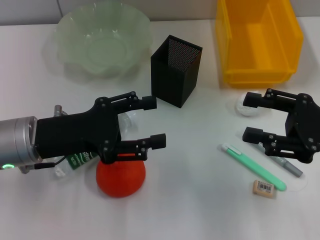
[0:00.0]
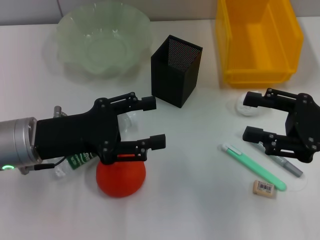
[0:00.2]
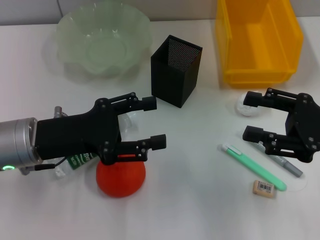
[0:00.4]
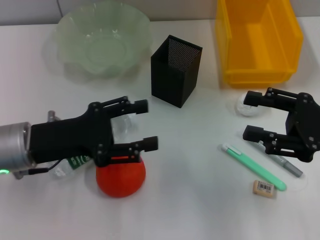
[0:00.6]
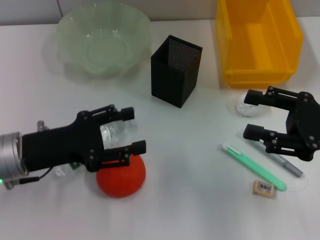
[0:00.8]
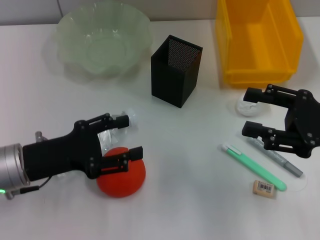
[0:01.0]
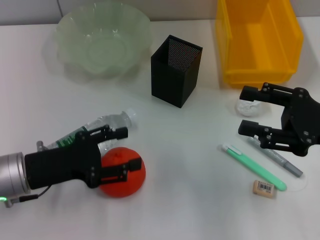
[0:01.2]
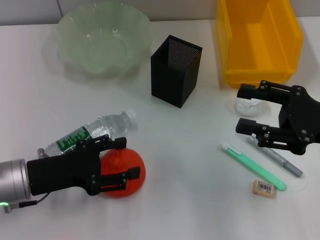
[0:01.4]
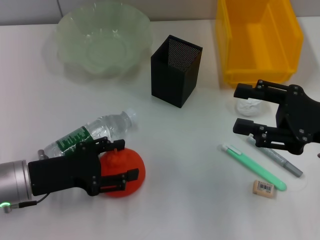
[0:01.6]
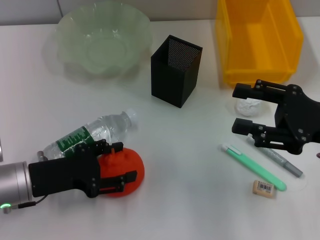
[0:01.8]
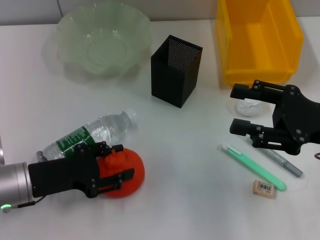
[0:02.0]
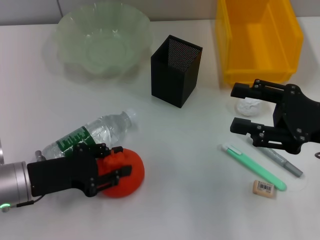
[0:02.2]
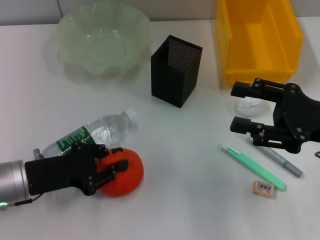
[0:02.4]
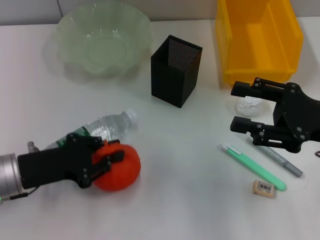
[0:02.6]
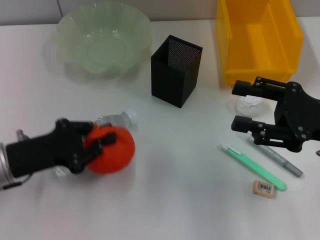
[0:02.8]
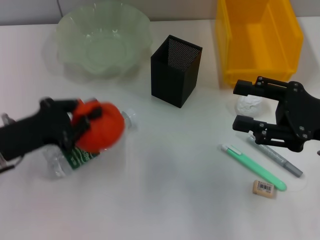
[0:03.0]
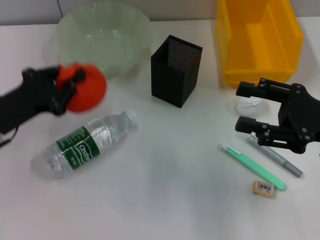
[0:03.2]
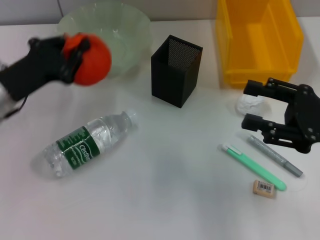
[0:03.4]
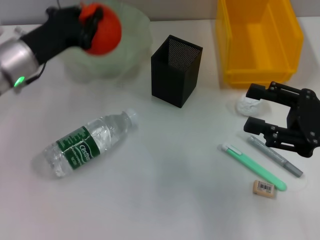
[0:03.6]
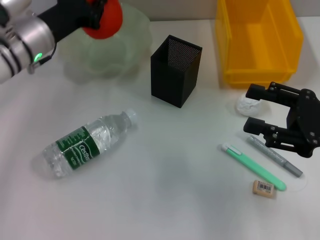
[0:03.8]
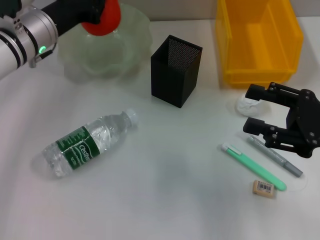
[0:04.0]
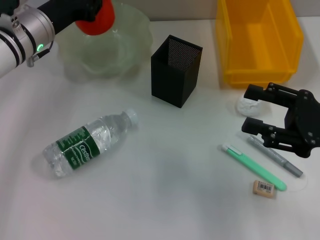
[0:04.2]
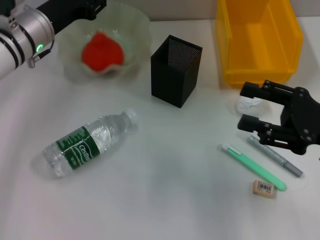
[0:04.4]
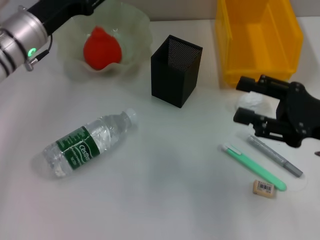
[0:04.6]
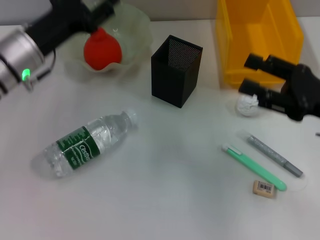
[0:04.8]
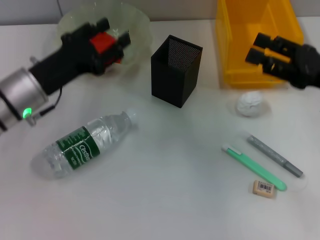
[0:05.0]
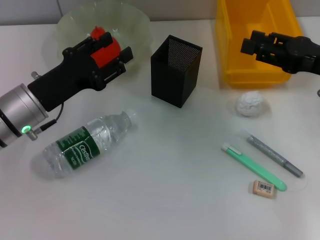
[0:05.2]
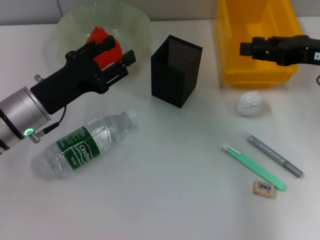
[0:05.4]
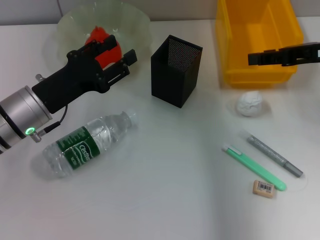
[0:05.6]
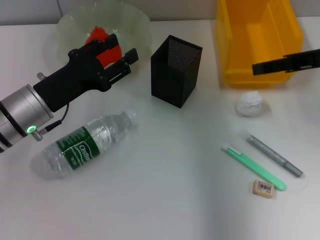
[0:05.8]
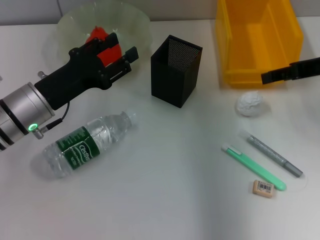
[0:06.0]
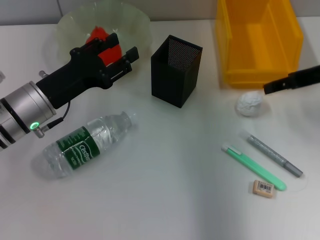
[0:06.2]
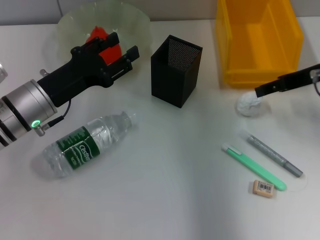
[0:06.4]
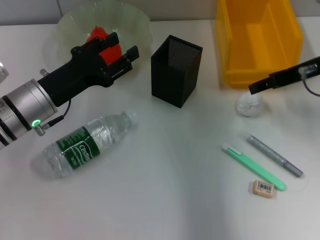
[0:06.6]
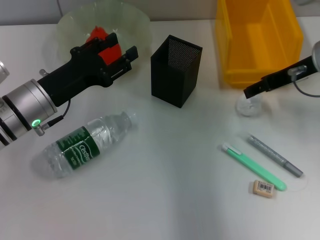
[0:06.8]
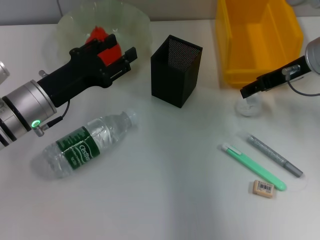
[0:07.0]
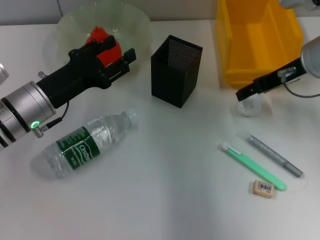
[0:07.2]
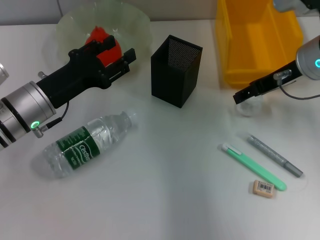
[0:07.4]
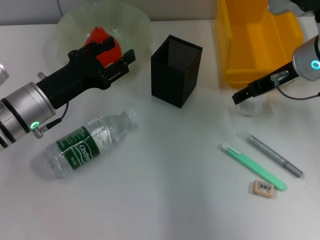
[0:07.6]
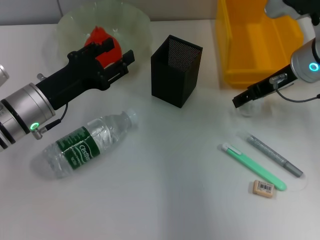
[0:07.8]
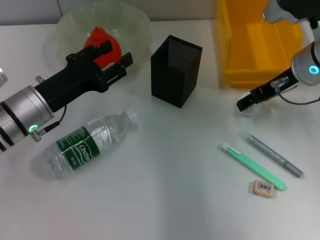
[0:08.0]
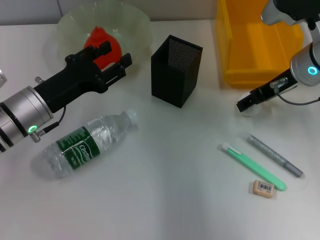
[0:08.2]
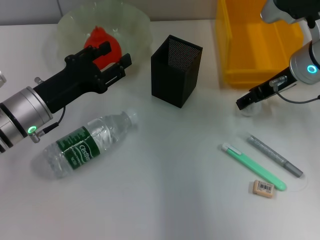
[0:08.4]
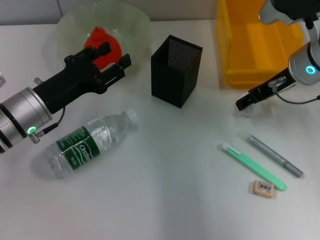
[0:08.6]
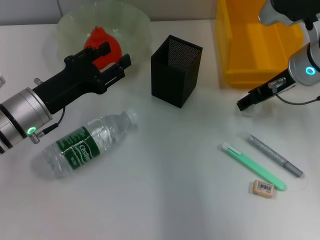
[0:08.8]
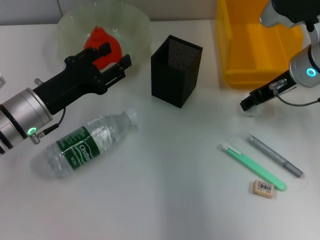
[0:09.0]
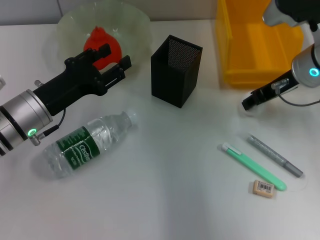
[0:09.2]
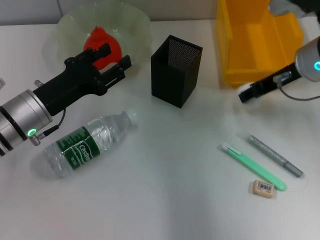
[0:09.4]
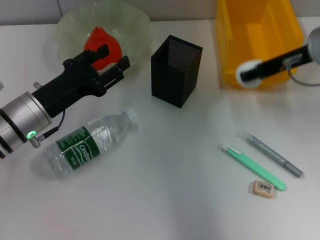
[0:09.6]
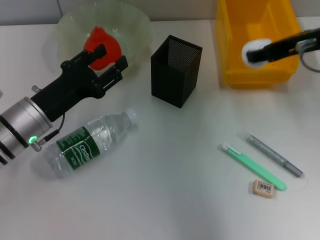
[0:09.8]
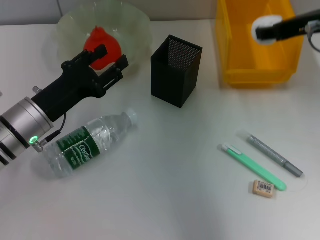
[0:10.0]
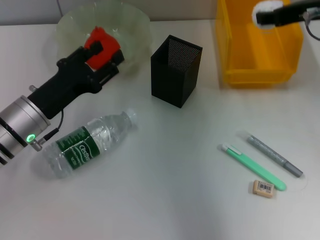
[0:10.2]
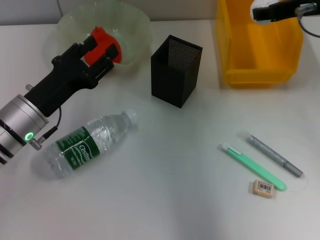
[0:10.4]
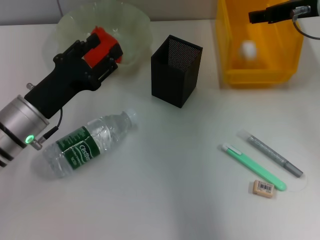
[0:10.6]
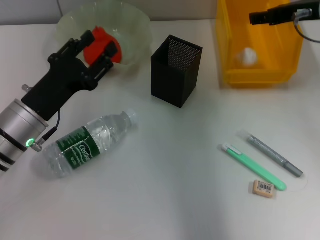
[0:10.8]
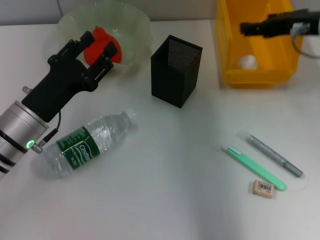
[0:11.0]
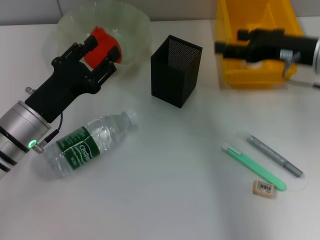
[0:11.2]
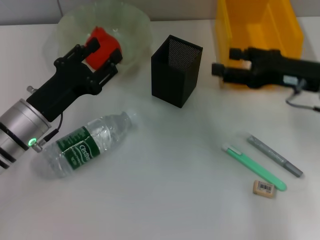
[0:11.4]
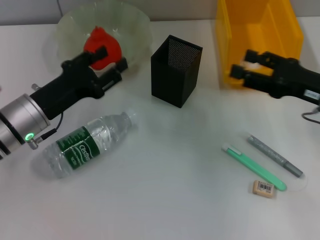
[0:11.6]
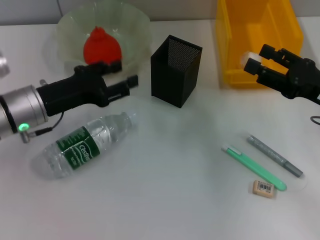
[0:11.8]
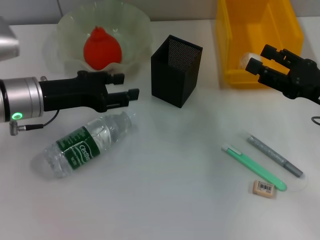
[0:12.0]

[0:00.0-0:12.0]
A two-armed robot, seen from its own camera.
Step, 0.0 to 2.0 s: Grab the orange with the left hand.
Step, 2.2 to 4.8 s: Place the orange into the fruit bowl with the left hand.
Step, 5.0 to 9.0 s: Grab the paper ball with the right hand.
Step, 9.2 to 11.0 s: Place the paper ball into the trash can with the right hand.
0.0 to 1.6 s: The left gripper goes roughly 5 cm downward.
1.6 to 3.0 s: The left gripper closes.
3.0 to 4.4 s: The left gripper heads forward, covering roughly 15 cm.
4.4 to 6.0 s: The left gripper shifts roughly 10 cm backward, and opens. The right gripper goes about 15 cm forward and upward.
6.0 to 7.6 s: The right gripper moves to the left, approximately 5 cm.
7.6 to 9.0 s: The two grippers keep their place.
9.0 to 10.4 s: The right gripper shifts roughly 10 cm upward, and closes.
10.4 to 12.0 s: The right gripper goes about 20 cm downward, backward and to the right, and opens up; the left gripper travels upward by about 5 cm.

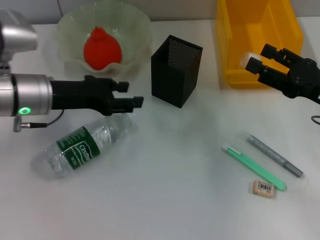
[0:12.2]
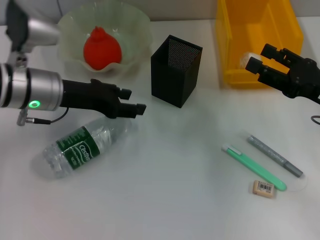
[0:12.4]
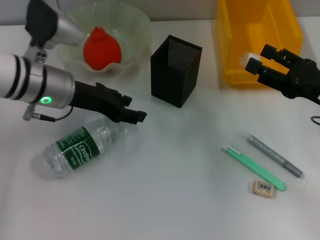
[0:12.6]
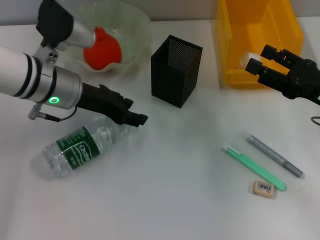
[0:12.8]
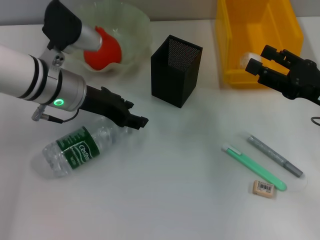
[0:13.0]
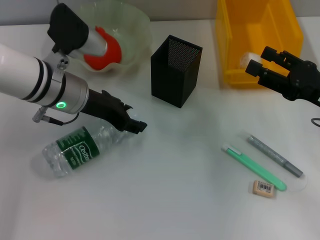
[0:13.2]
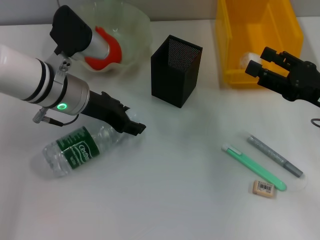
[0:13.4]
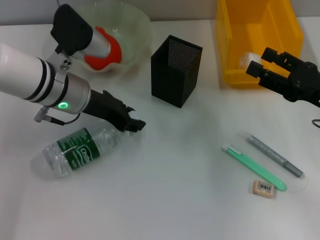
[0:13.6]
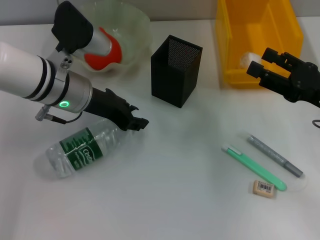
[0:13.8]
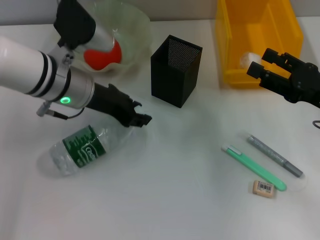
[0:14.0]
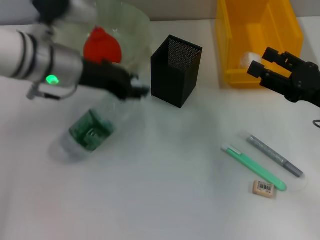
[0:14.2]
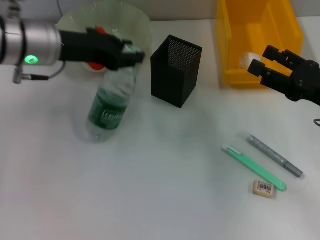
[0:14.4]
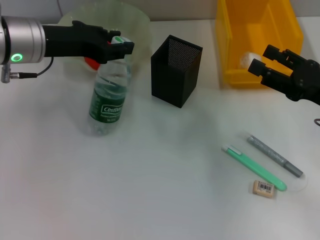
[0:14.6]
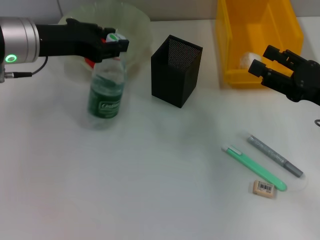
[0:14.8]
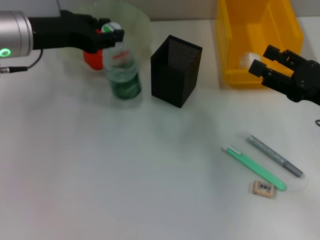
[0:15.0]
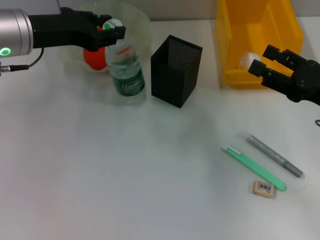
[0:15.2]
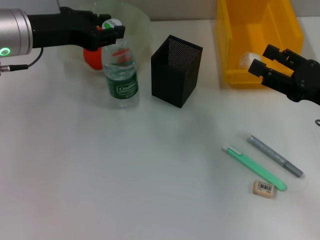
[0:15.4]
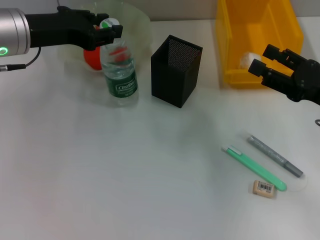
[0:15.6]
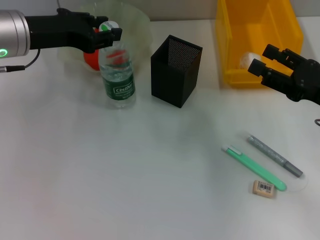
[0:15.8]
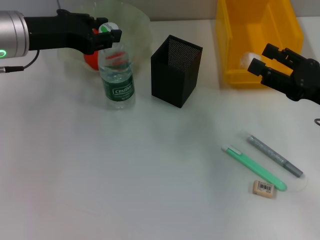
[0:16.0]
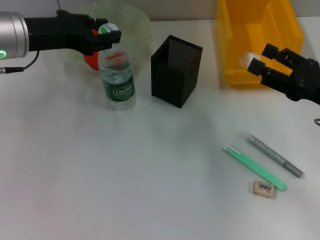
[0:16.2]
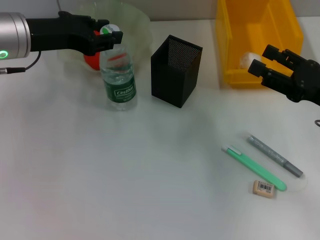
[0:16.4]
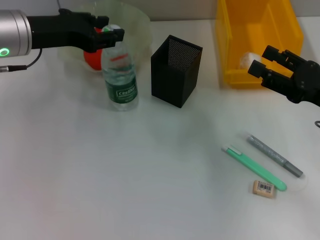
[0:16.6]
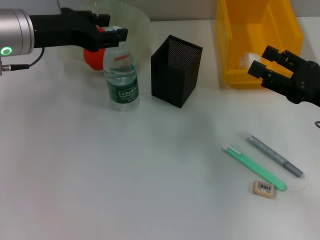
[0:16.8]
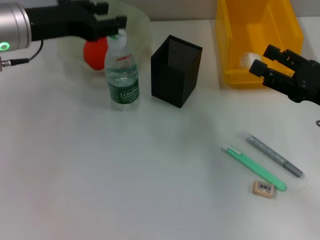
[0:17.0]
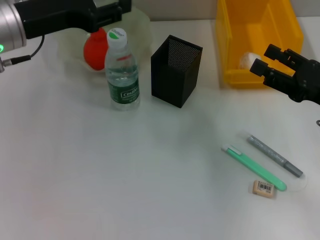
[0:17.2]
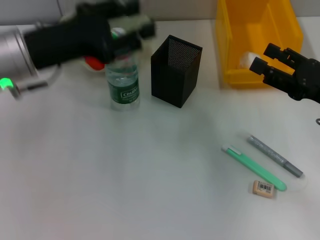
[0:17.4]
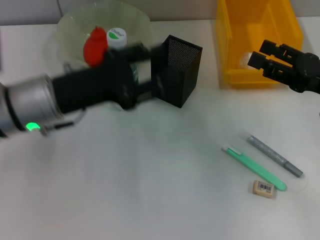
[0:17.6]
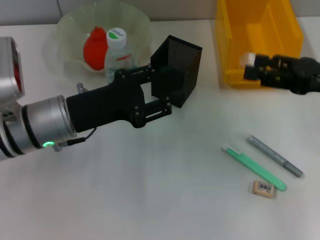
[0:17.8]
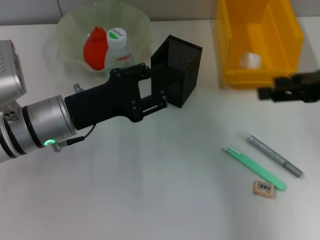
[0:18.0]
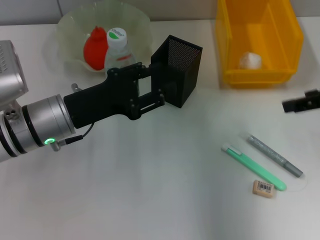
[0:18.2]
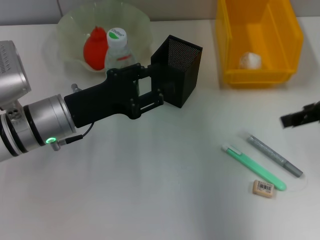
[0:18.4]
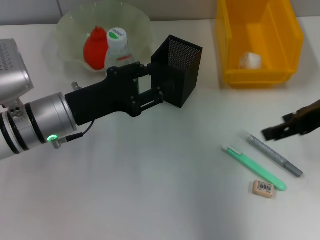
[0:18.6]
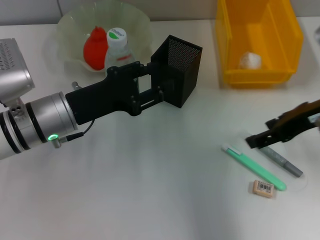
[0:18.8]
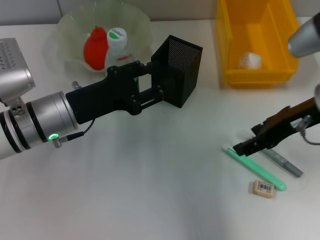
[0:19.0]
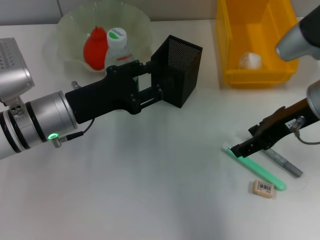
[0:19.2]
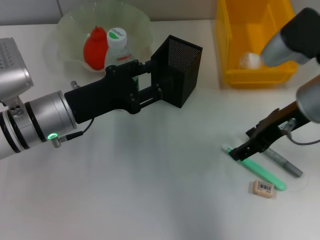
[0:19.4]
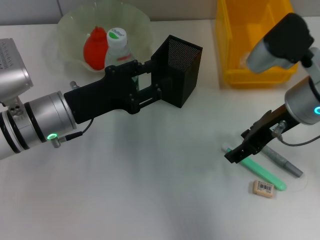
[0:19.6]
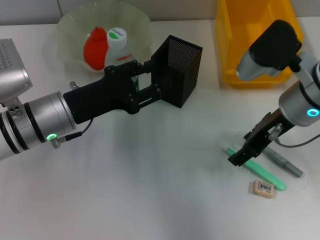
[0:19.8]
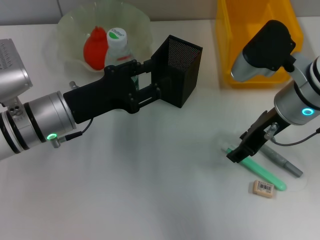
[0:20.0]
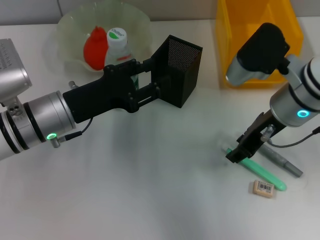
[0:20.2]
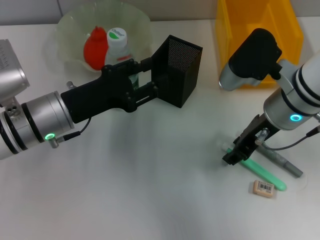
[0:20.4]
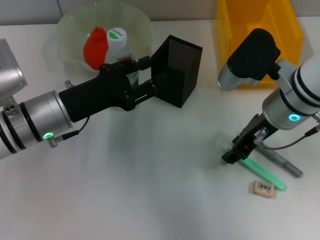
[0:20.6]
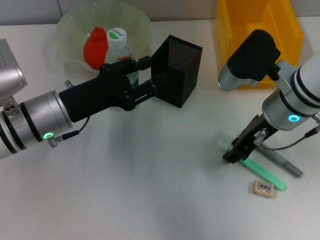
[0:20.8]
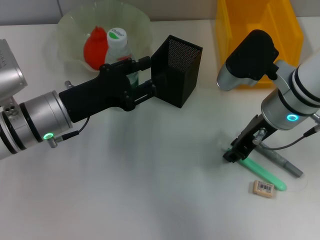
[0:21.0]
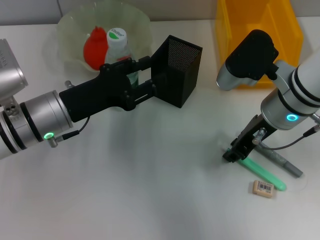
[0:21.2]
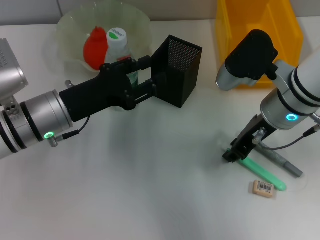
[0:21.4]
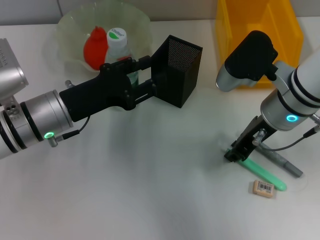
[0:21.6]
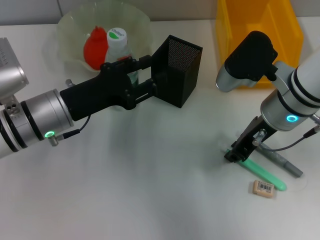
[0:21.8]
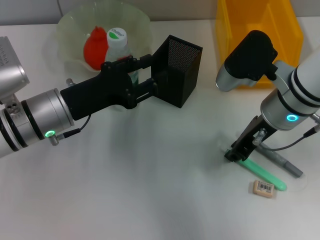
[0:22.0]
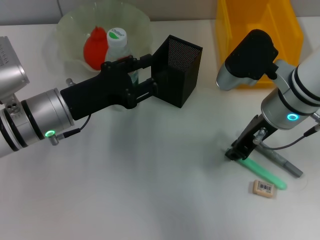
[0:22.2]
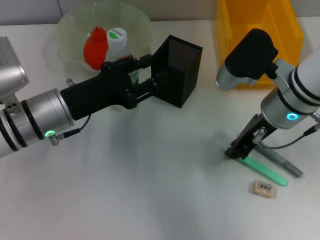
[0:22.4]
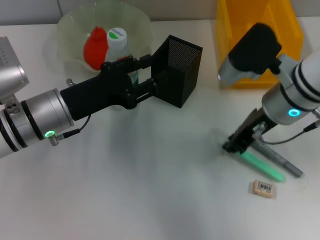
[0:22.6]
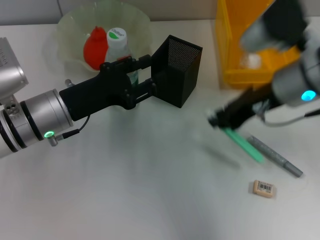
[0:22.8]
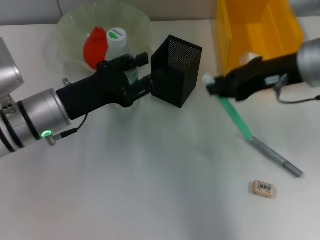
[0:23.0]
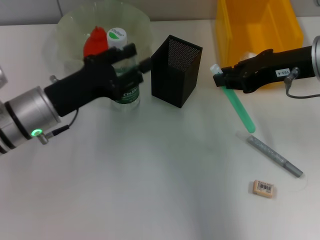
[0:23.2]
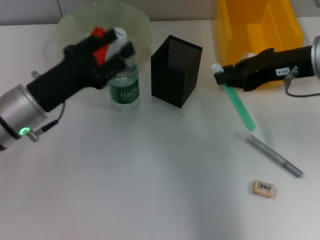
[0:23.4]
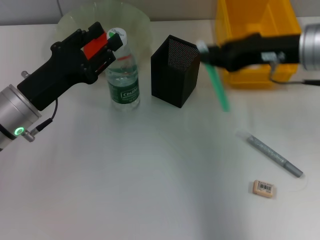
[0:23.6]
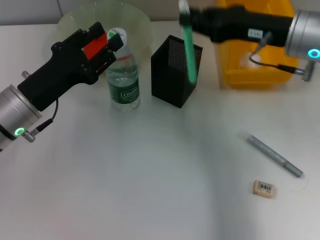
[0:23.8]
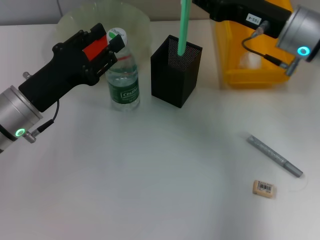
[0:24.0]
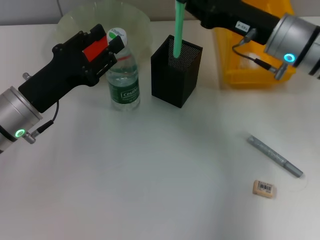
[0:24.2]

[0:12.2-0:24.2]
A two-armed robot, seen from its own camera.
Step, 12.2 to 13.6 s: Grab the water bottle with the left hand.
Step, 13.8 to 16.6 s: Place the water bottle on the table with the left hand.
Step, 16.8 to 21.8 s: Grab the blue utility knife with the right hand.
12.2 to 13.8 s: The left gripper moves to the right, roughly 5 cm.
13.8 to 15.2 s: The left gripper goes some 10 cm upward and to the left.
15.2 to 16.6 s: Neither gripper changes place.
16.6 to 18.2 s: The left gripper shifts approximately 10 cm downward and backward. The right gripper moves upward, some 10 cm.
18.2 to 19.8 s: The right gripper goes some 15 cm to the left and downward.
19.8 to 21.2 s: The right gripper closes its fingers.
21.2 to 22.6 s: Both grippers stay put.
